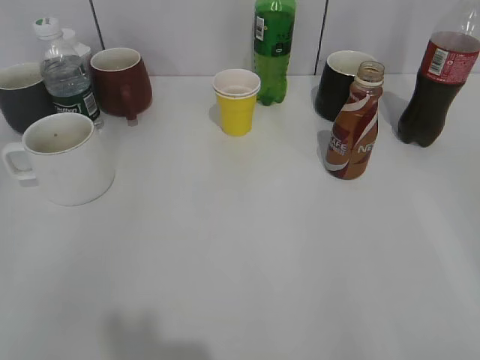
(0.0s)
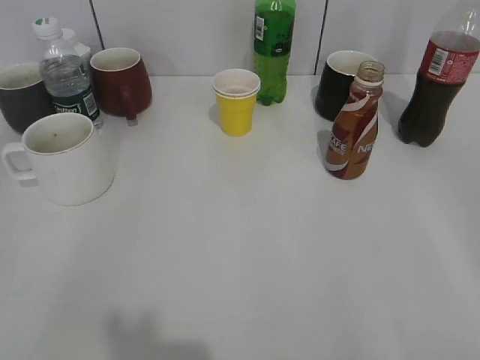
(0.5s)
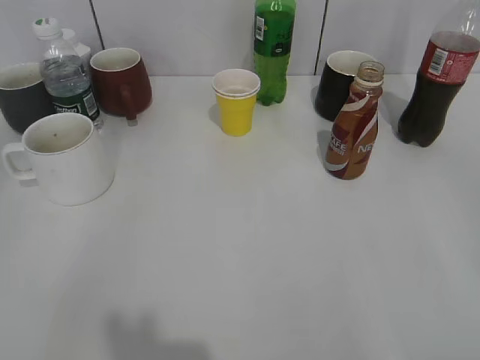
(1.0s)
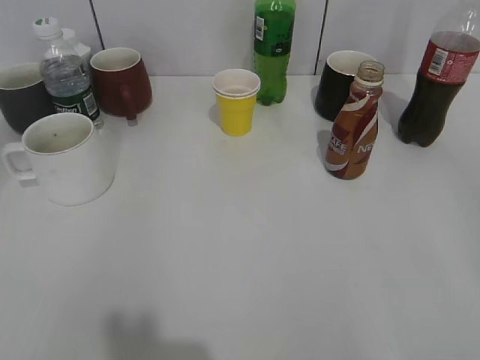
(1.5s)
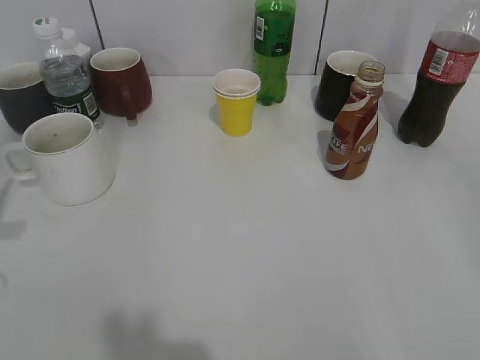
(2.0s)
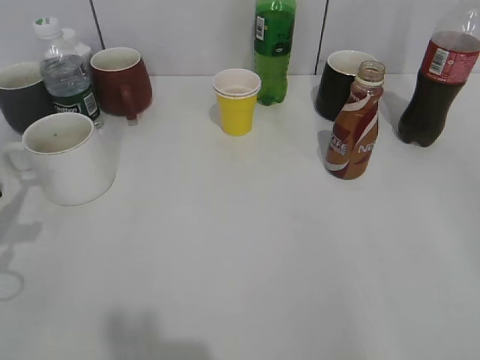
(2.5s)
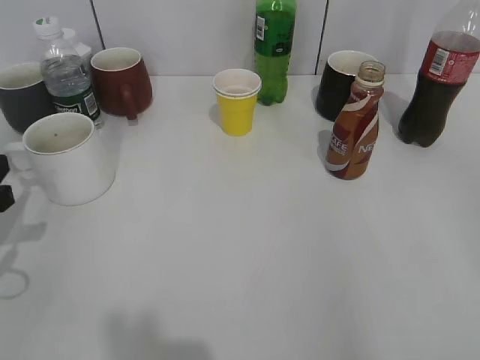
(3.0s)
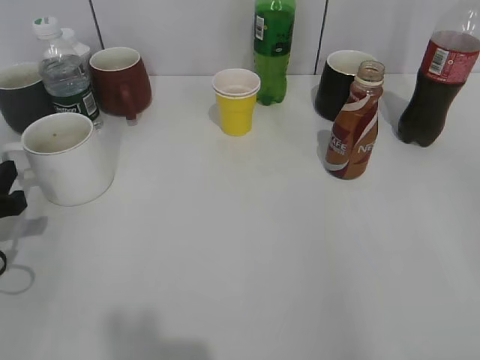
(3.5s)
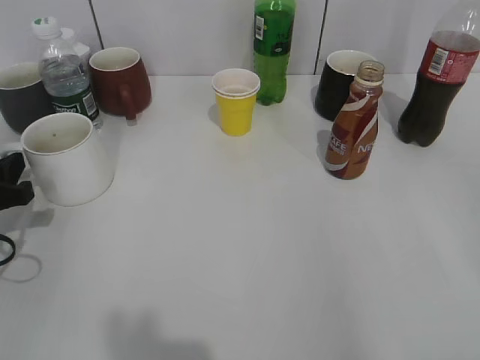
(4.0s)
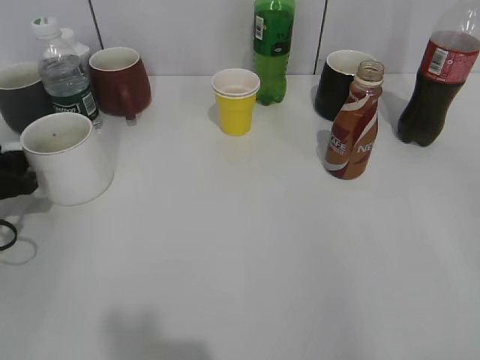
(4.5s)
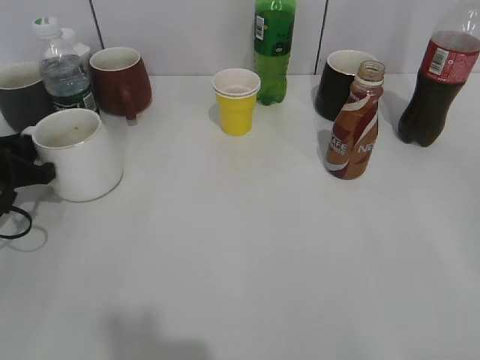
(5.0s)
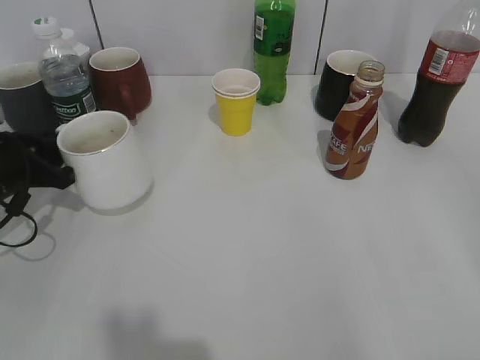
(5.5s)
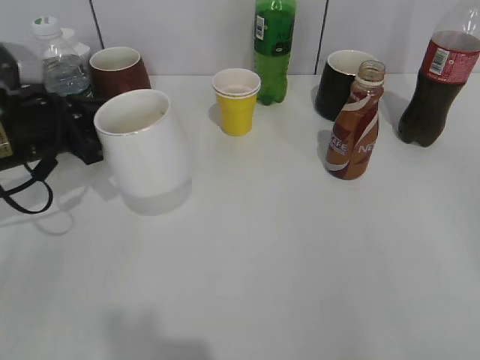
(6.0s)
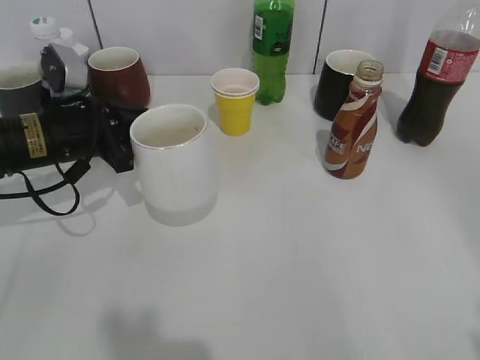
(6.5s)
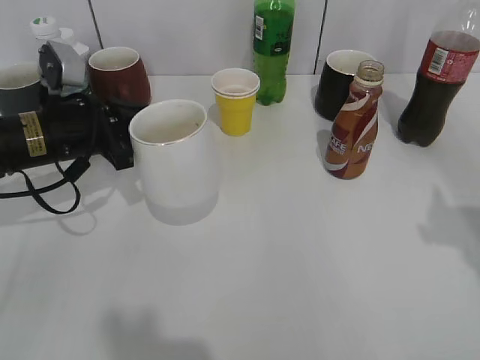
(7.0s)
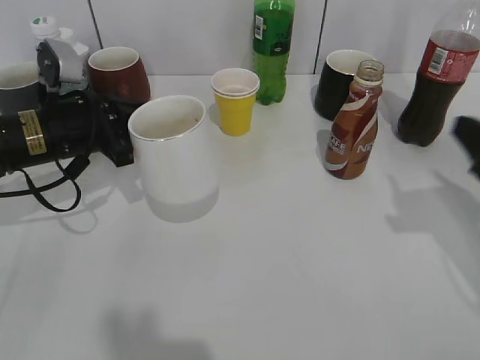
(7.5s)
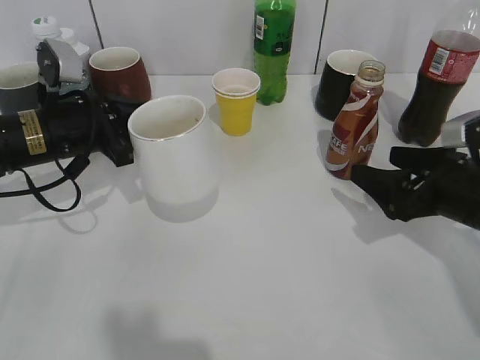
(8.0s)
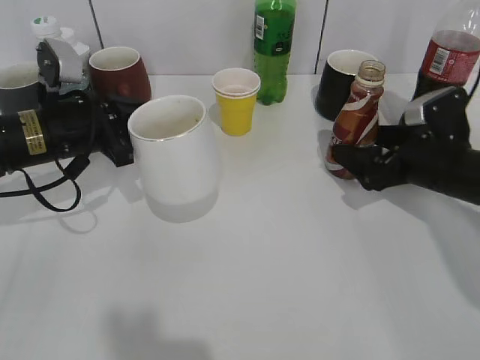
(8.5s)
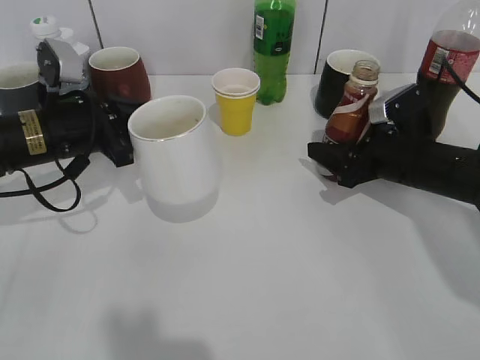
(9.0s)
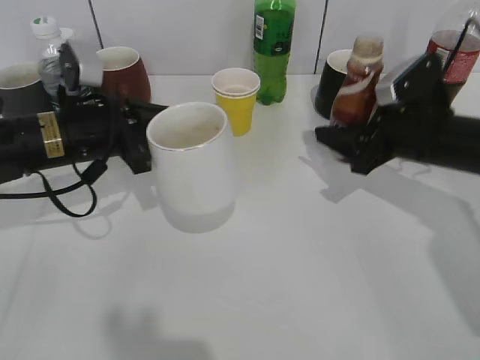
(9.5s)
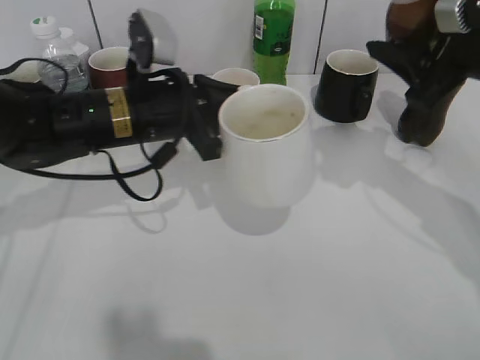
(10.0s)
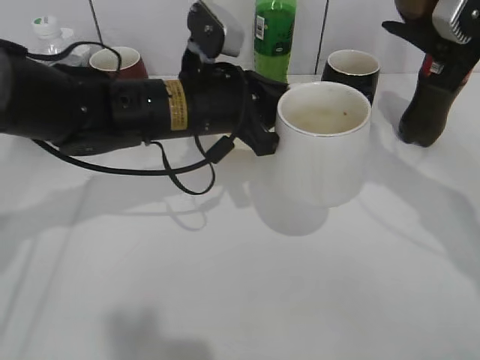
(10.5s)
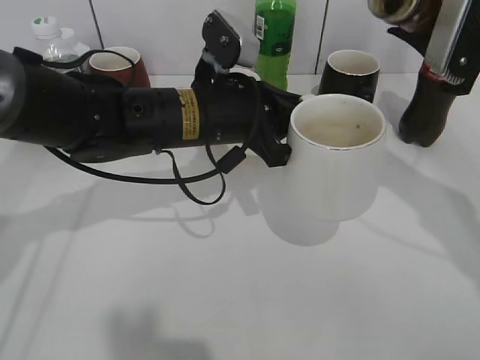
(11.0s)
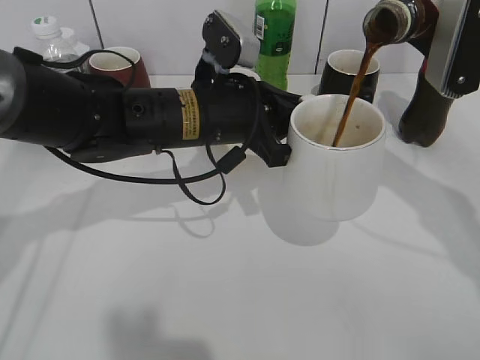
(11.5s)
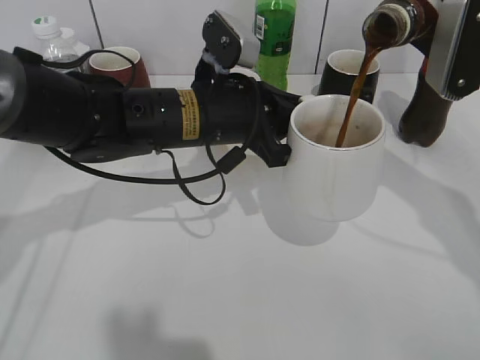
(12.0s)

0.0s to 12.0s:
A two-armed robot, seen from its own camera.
Step, 2.0s to 4.5s: Grasp the white cup with left gripper.
Step, 5.0s to 7.0s: Lift the white cup with left gripper.
Step, 7.5s to 9.0s: Grasp the bottle with coffee with right gripper.
2.0s to 4.0s: The left gripper is displaced downward and forward by roughly 10 cm.
4.0s to 6.0s: The left gripper travels forward and to the right by some 10 cm, and closes.
6.0s to 8.0s: The right gripper heads forward and downward, covering approximately 30 cm, and opens up.
8.0s to 10.0s: The left gripper shifts some 10 cm to the right, while the right gripper heads upward, covering some 15 cm, and closes.
10.0s to 12.0s: The left gripper shifts approximately 5 cm to the right.

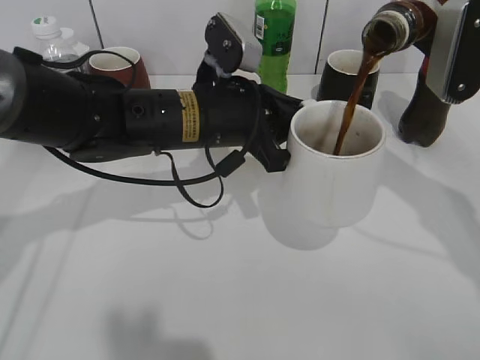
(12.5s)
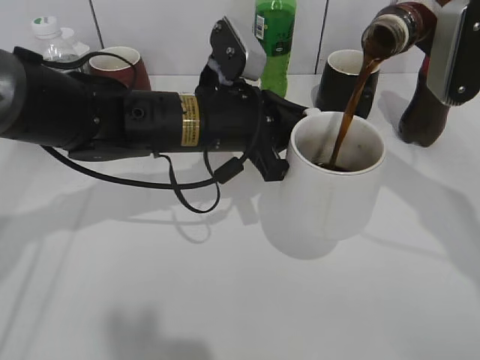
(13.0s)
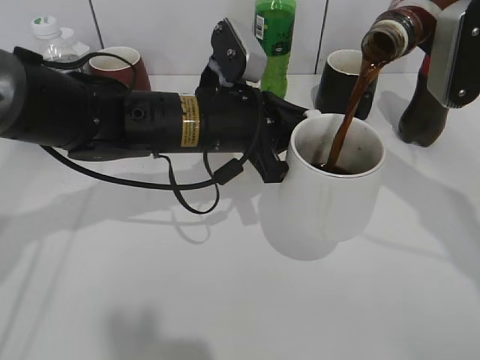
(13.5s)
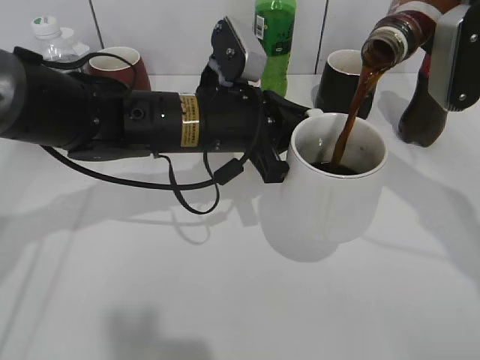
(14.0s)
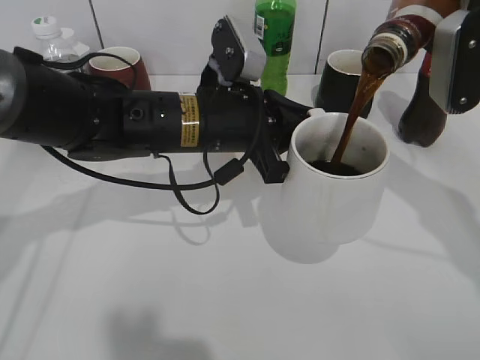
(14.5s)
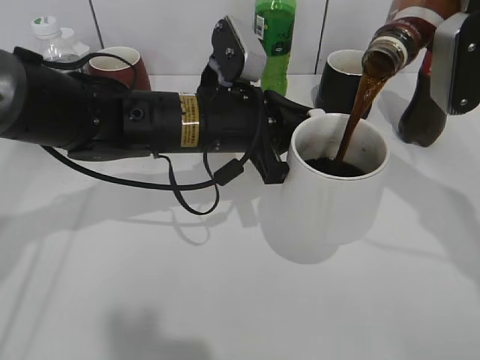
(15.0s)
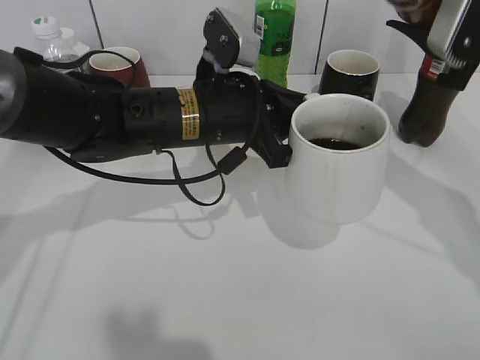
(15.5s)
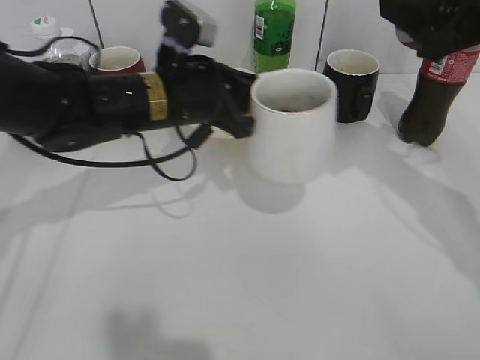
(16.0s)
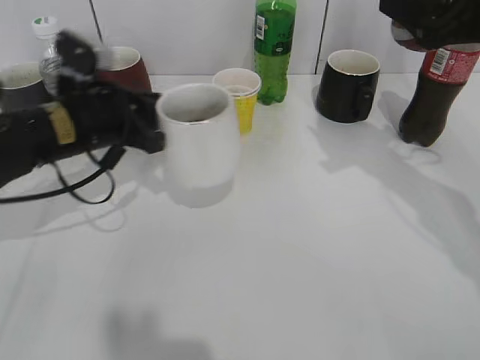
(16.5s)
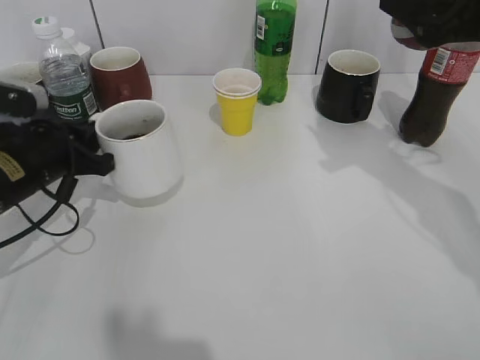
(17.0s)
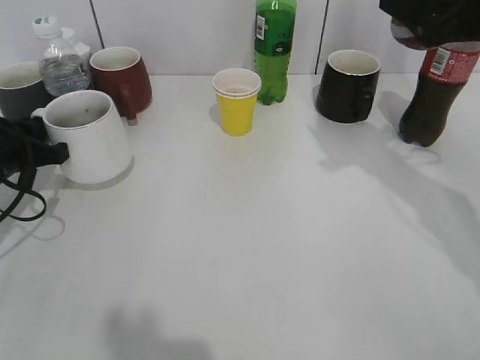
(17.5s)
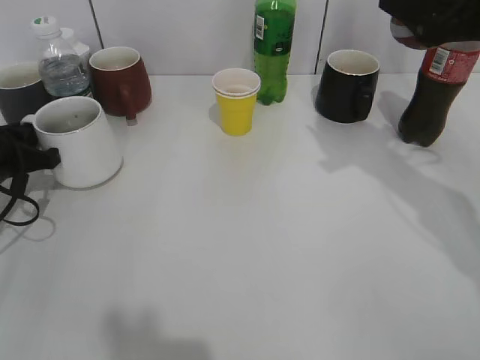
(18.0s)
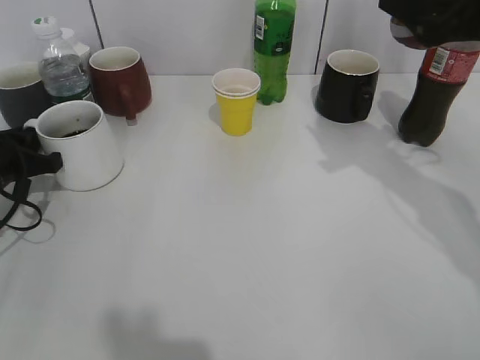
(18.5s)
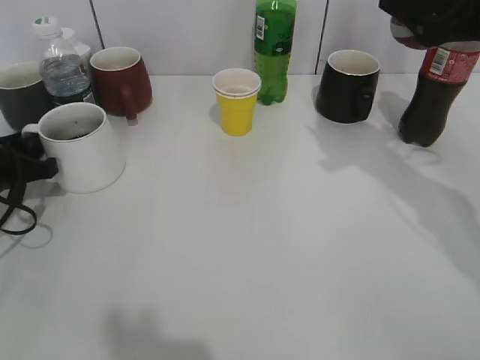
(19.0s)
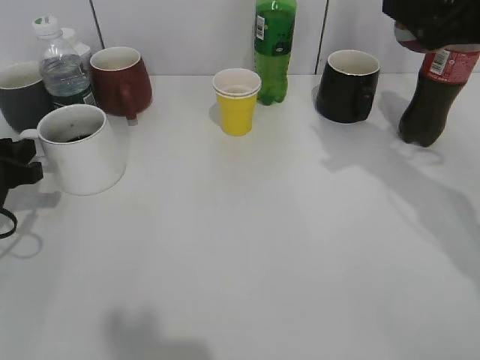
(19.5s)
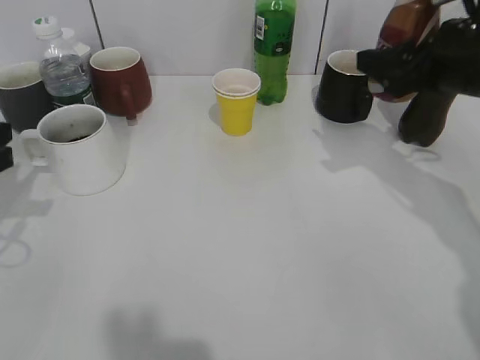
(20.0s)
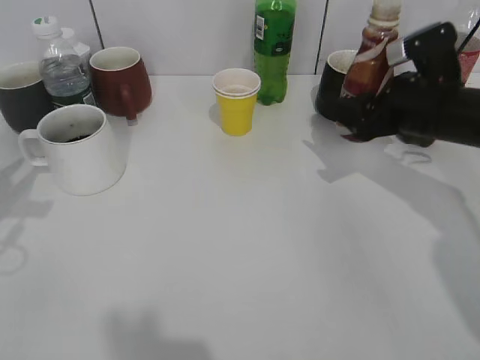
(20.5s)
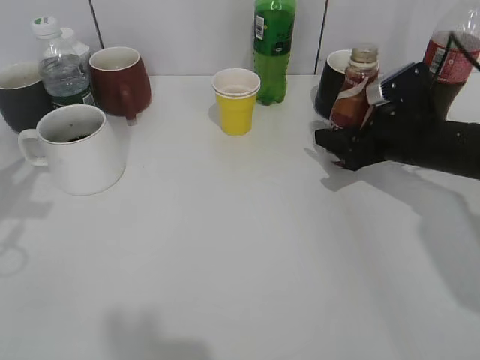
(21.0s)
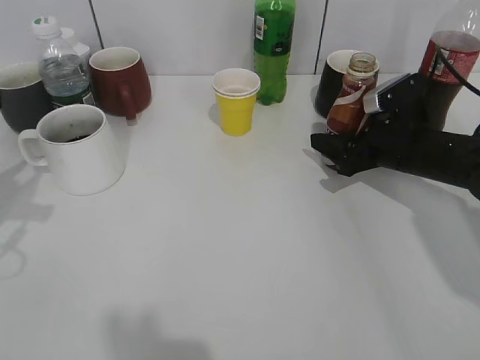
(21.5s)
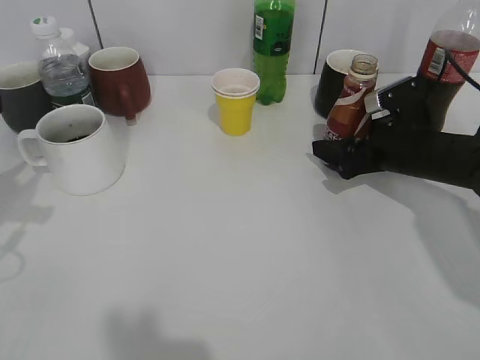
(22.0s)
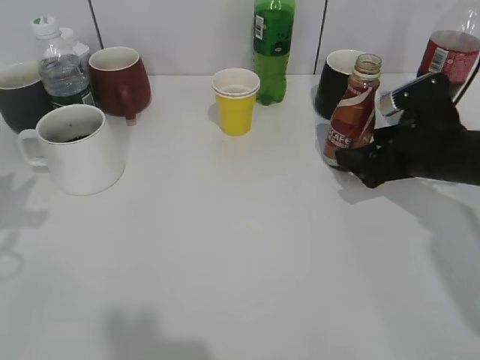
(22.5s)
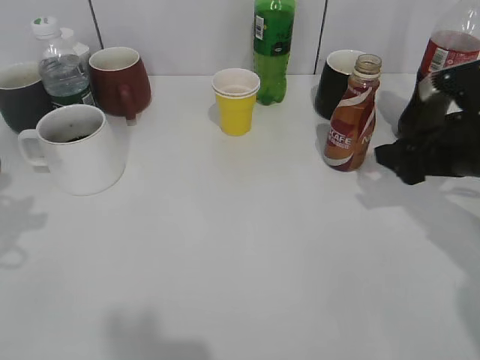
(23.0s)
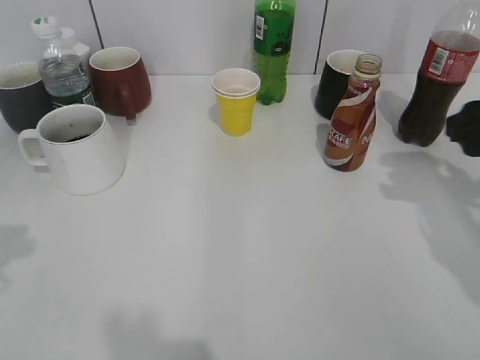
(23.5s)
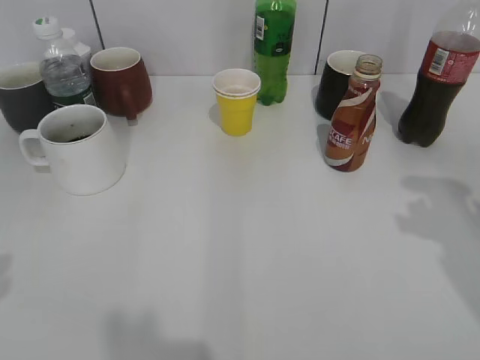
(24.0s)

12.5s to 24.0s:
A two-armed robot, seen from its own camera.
Step, 16.0s to 19.5s: Place the white cup on the table with left gripper.
Step, 20.0s to 22.5s: Place the coffee bottle on the table with right gripper.
12.5s to 14.5s: The grippers make only small movements.
14.5s to 16.5s: The left gripper shifts roughly 15 cm to the left.
16.5s to 18.5s: The left gripper is displaced to the left and downward by about 15 cm.
18.5s to 20.0s: The right gripper heads downward, covering about 5 cm, while the left gripper is displaced upward and backward by about 10 cm, and opens.
20.0s to 22.0s: The left gripper shifts by approximately 5 cm. Meanwhile the right gripper moves downward, about 15 cm, and opens its fingers.
22.0s to 24.0s: The right gripper travels upward, backward and to the right by some 20 cm, and closes its fingers; the left gripper is displaced backward and upward by approximately 10 cm.
